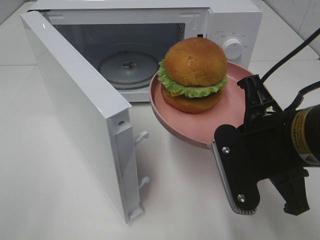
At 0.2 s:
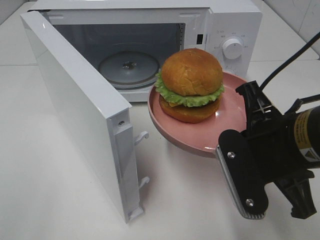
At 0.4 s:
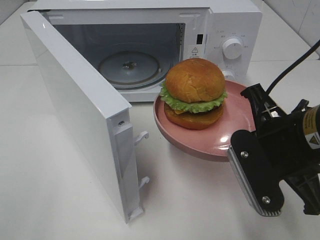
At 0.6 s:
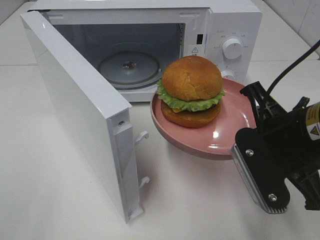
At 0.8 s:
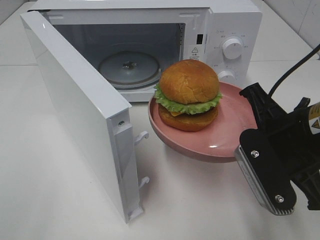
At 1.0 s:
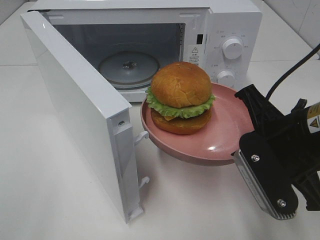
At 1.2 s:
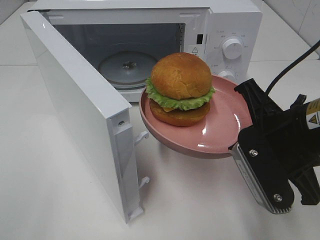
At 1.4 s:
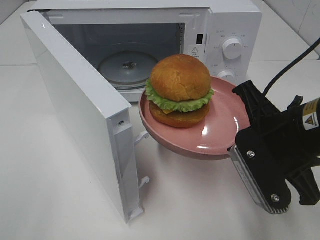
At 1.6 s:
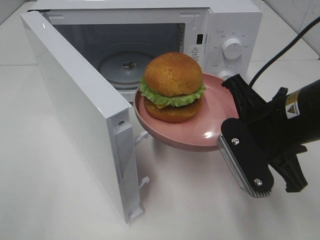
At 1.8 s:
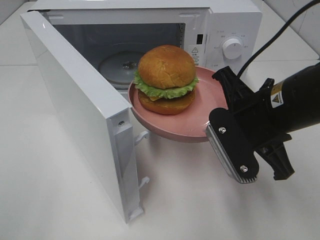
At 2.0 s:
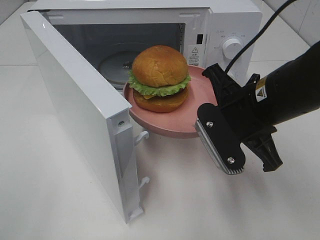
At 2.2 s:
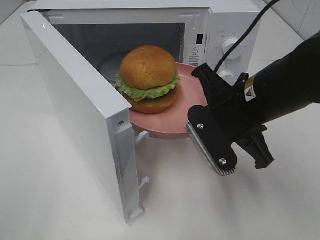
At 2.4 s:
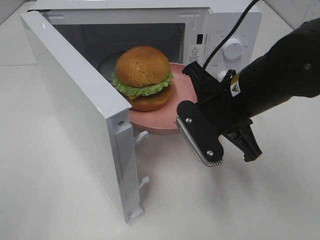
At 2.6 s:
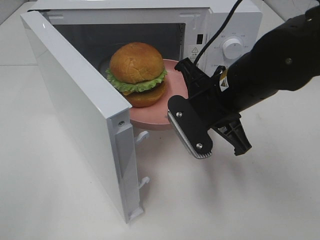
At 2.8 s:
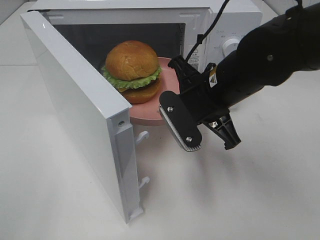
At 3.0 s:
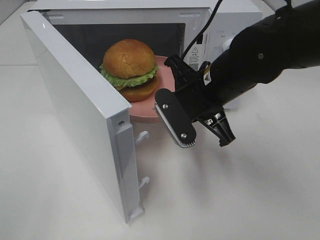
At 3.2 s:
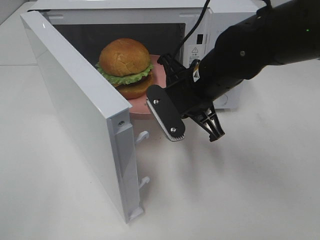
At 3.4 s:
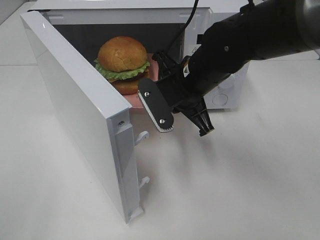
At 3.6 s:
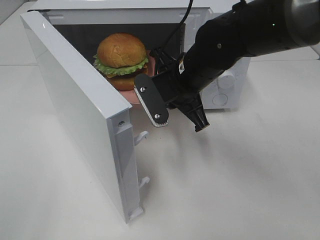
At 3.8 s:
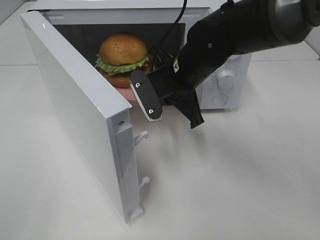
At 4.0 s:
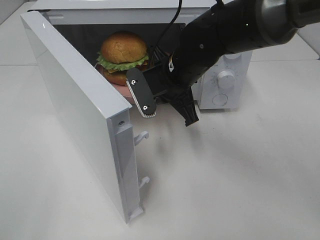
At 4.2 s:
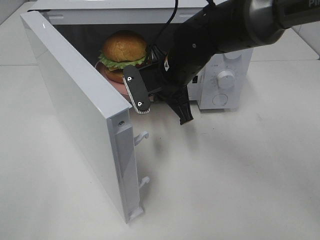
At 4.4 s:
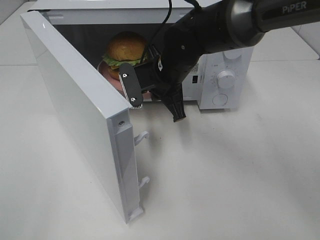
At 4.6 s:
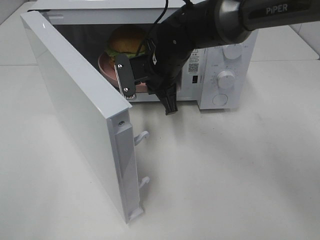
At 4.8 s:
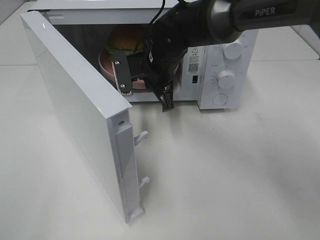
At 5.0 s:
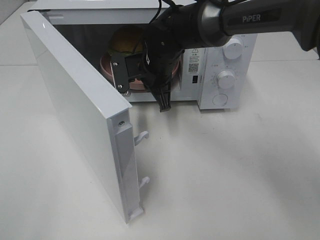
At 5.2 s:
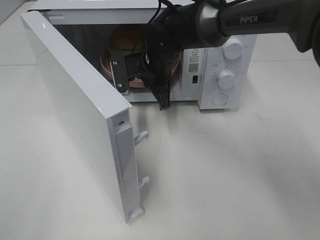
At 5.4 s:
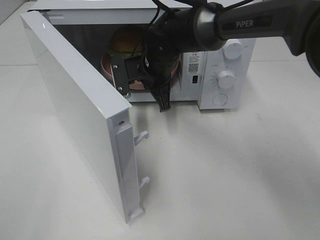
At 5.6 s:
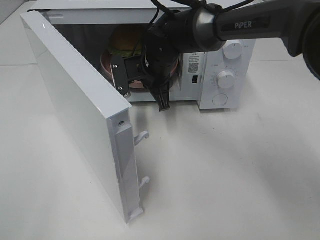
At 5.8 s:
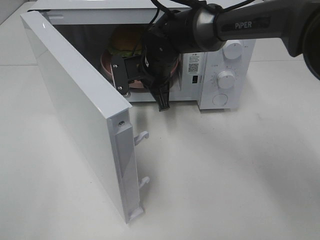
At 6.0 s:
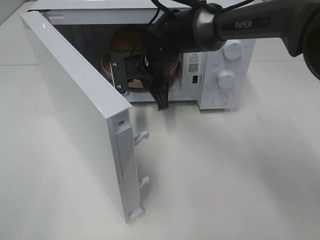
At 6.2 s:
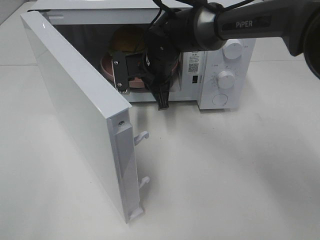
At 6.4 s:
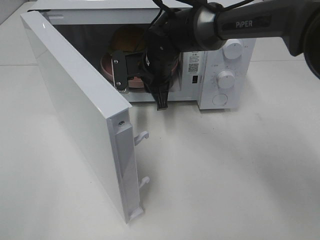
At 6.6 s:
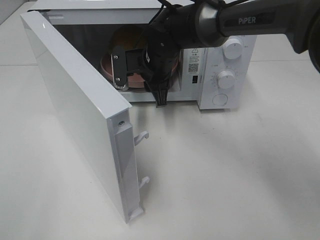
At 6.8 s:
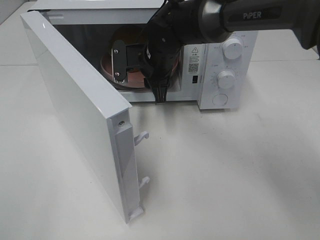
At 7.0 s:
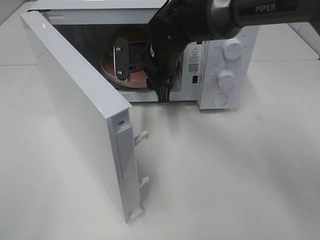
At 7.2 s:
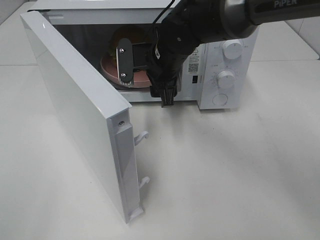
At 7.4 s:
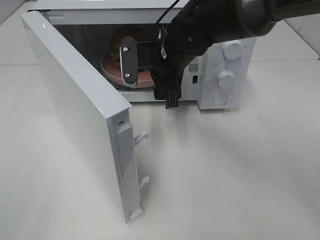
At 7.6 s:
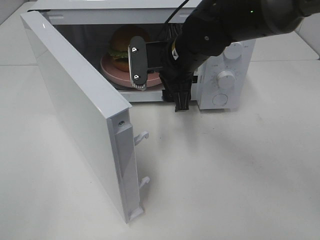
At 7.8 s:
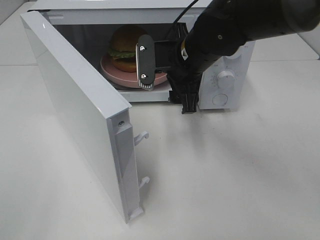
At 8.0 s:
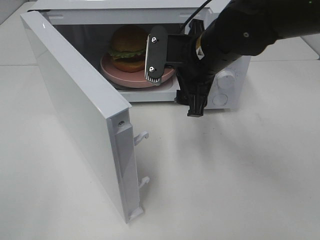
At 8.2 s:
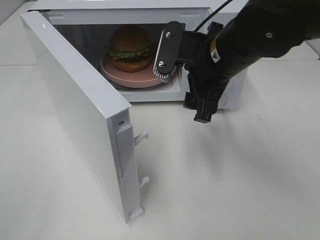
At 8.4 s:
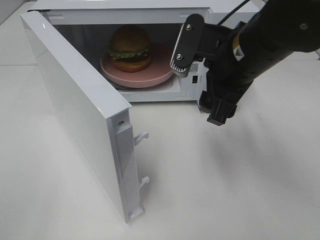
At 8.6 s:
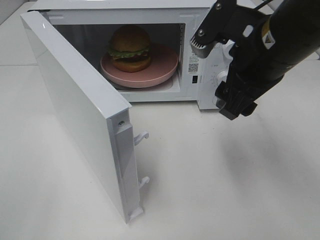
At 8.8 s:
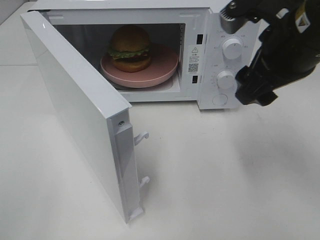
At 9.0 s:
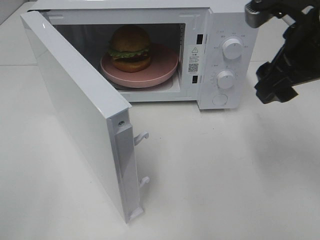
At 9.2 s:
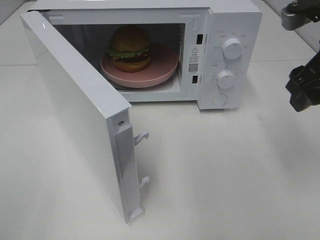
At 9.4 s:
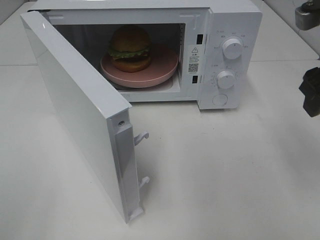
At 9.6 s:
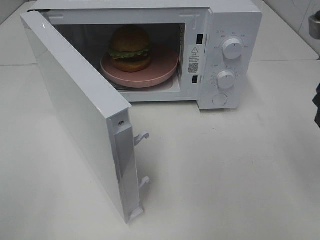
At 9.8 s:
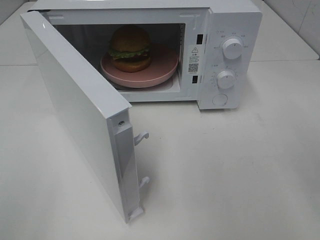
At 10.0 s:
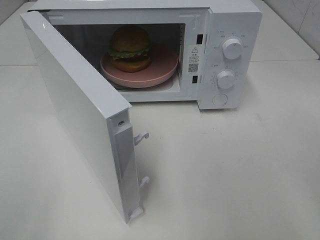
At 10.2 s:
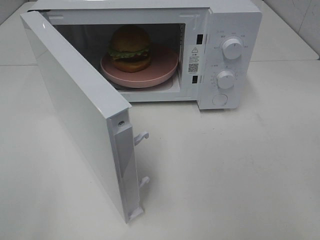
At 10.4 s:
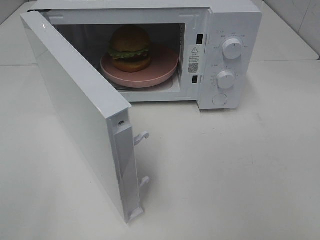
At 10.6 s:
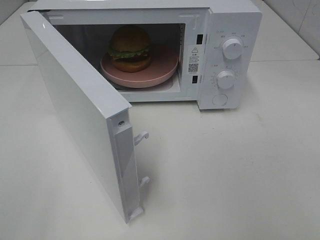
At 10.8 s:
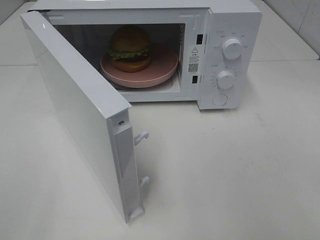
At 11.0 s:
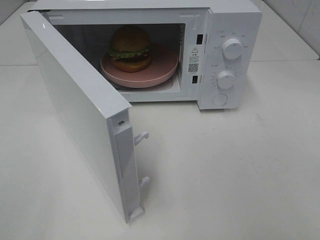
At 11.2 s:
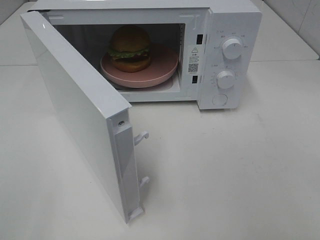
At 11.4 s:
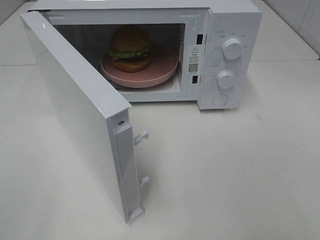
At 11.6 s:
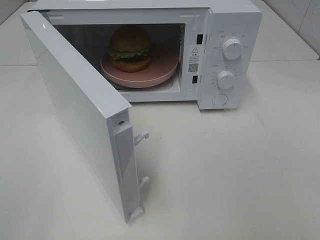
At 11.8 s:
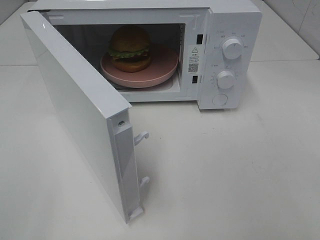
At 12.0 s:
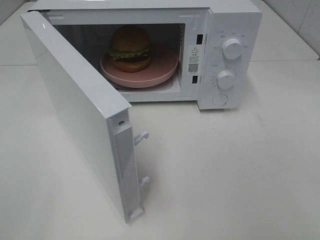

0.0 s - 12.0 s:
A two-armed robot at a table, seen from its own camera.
Task of the whole recording: Heat the burger.
Step, 0.0 s - 6.0 s: Right hand: place the plate in the microwave.
0.0 s - 1.6 s: The grippers make only small movements.
1.6 s - 3.0 s: The right gripper is displaced forward and to the left by roughly 10 cm.
3.0 s - 4.4 s: The right gripper shifts approximately 10 cm forward and to the left.
4.4 s - 6.0 s: The grippers move only a little.
6.0 s - 7.6 s: The right gripper travels backward by approximately 5 cm, and opens up.
7.6 s - 9.0 s: The right gripper is displaced to the right, backward and upward by about 20 cm.
9.0 s - 10.4 s: The right gripper shifts some 20 cm backward and to the right.

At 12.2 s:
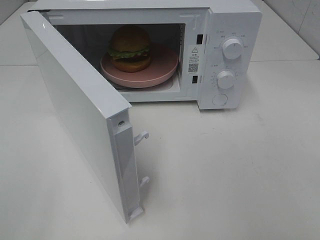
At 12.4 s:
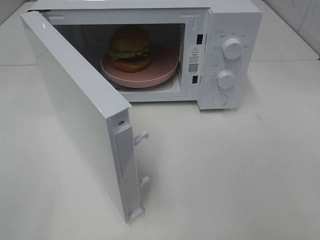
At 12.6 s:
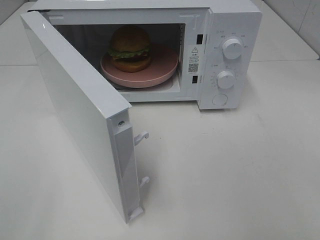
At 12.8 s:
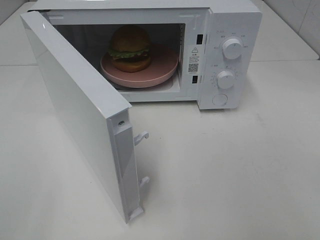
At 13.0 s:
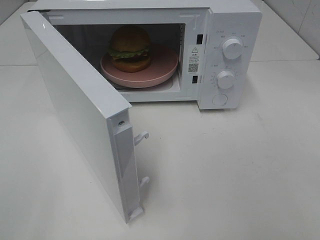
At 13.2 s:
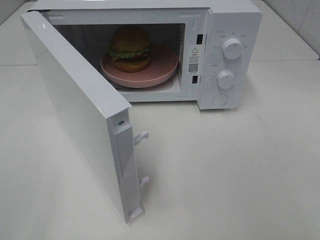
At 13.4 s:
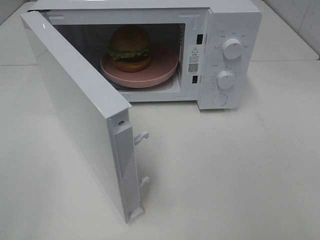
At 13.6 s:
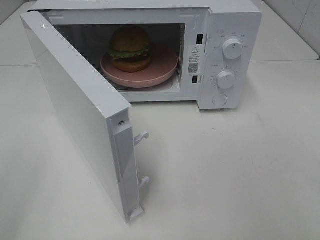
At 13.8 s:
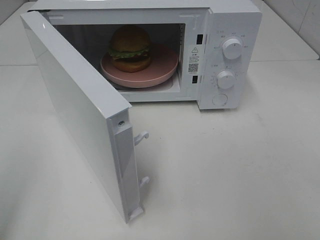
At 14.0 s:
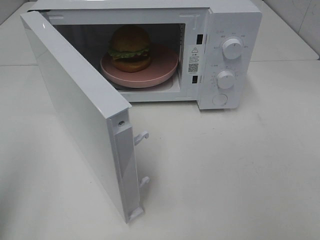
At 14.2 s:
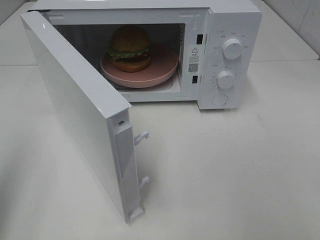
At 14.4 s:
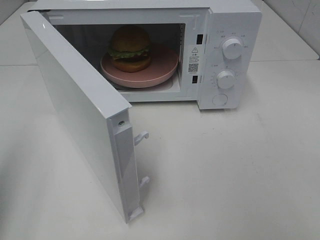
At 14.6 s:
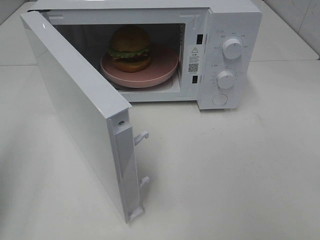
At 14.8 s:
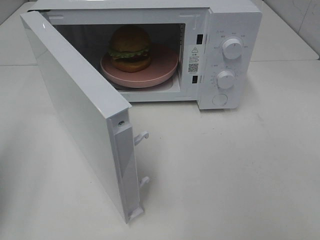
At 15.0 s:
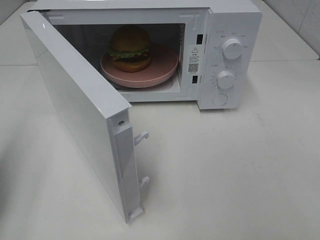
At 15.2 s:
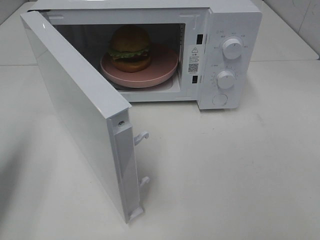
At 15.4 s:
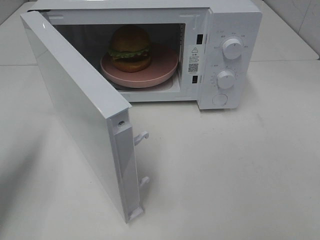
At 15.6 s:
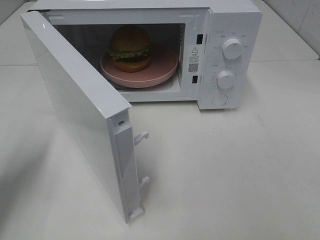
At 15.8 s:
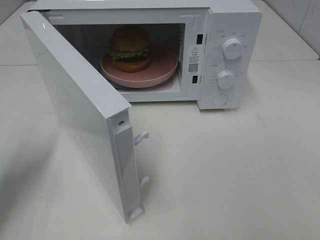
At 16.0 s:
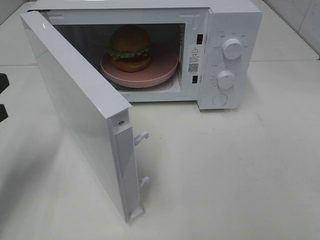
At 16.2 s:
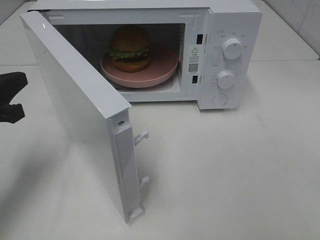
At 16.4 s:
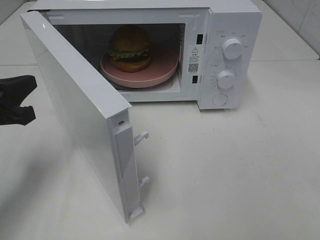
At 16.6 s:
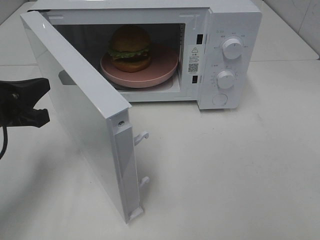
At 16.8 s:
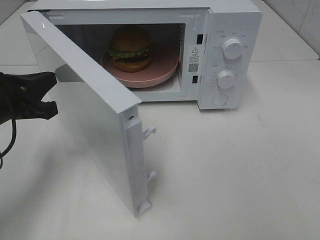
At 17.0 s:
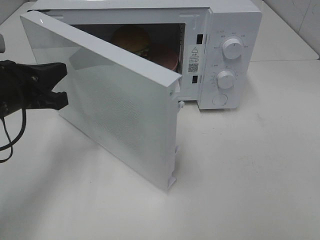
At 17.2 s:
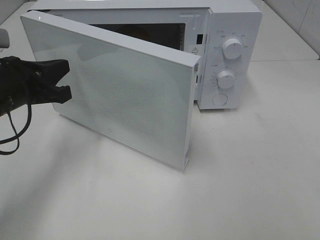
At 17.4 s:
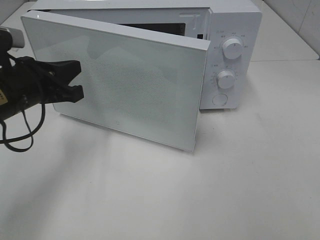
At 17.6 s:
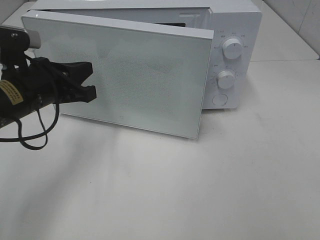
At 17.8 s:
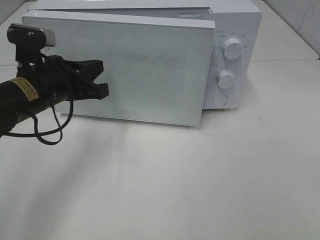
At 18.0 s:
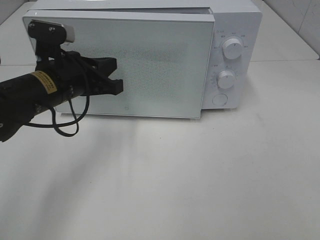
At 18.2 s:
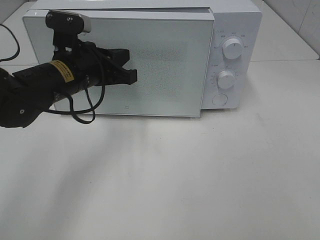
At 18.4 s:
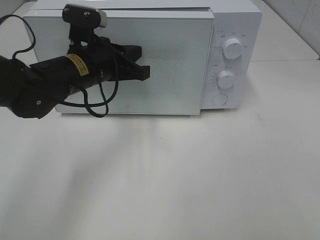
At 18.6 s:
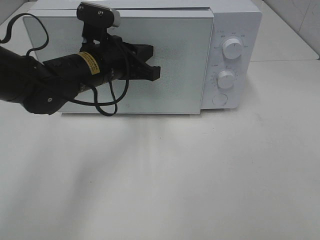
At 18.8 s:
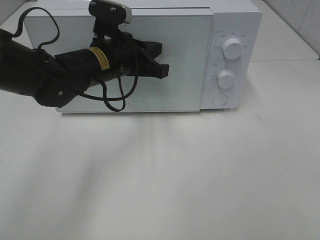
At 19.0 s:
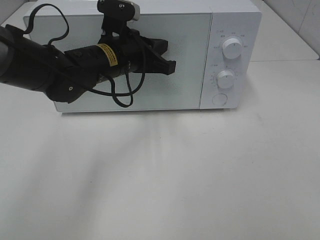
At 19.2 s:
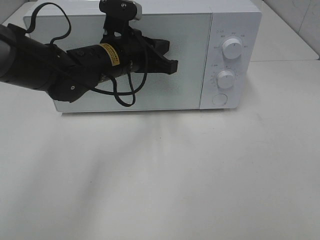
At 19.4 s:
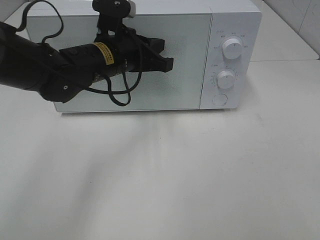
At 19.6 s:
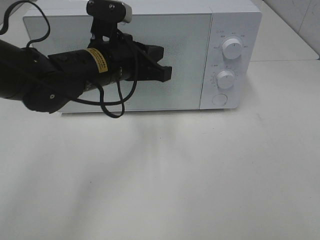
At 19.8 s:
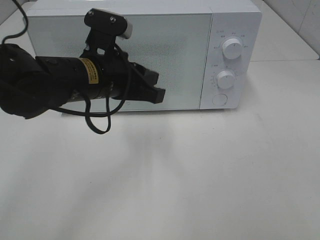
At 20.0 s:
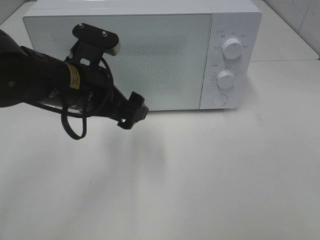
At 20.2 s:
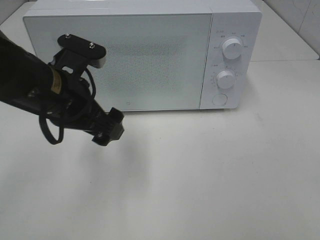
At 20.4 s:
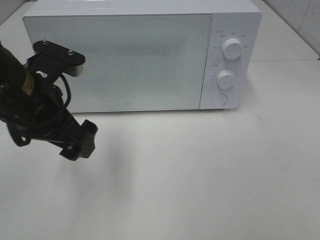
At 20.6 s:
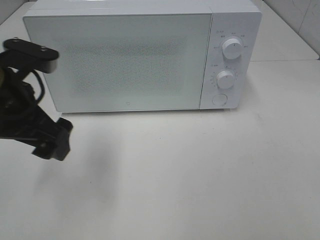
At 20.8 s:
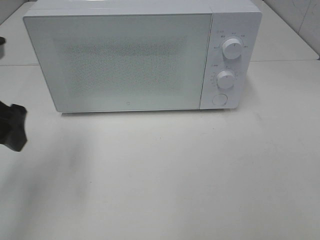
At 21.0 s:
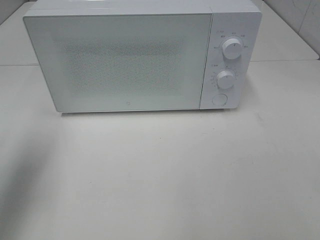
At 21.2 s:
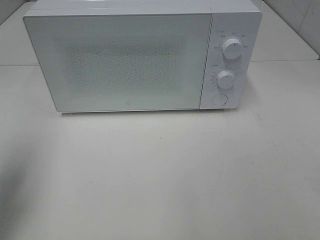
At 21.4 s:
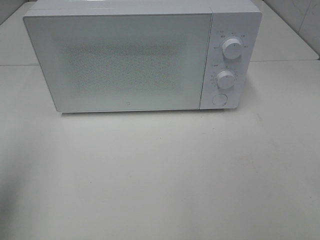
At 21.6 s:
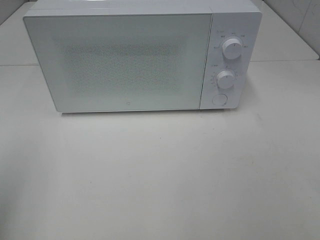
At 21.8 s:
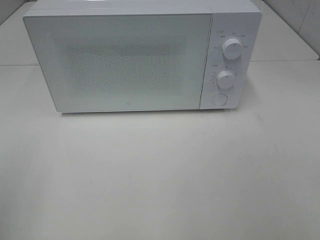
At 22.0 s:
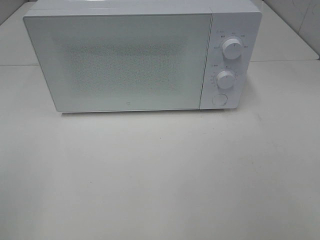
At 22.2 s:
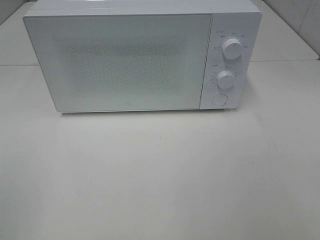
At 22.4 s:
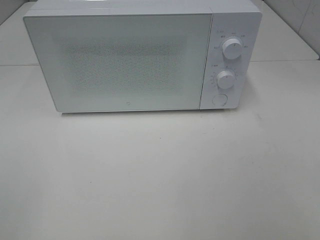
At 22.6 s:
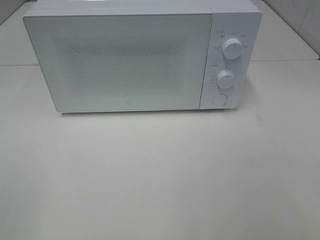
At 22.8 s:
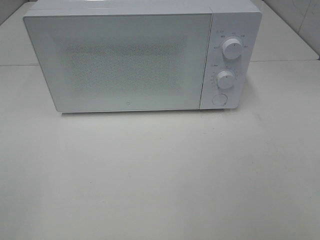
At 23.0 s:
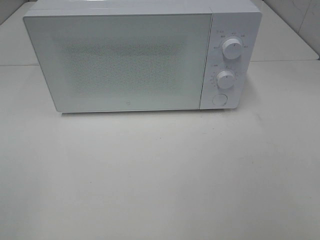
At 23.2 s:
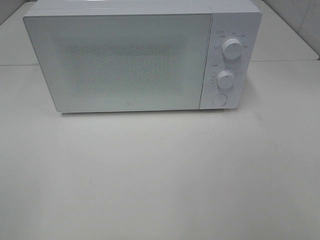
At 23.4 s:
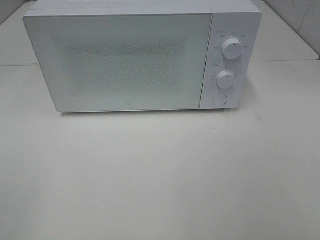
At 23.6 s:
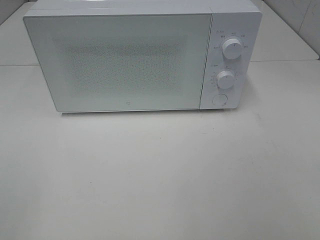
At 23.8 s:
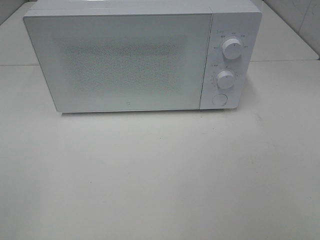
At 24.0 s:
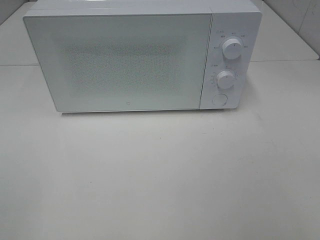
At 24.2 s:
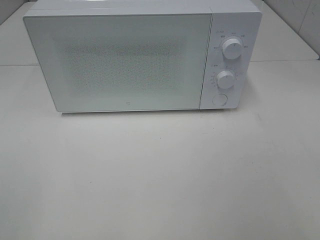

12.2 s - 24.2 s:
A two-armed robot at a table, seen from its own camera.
Task of the whole recording: Heat the burger.
Step, 12.2 s - 19.4 s: Left hand: close the microwave door.
13.8 s - 15.2 s: The left gripper is displaced forward and downward by approximately 15 cm.
15.2 s - 16.6 s: The left gripper heads to the right, downward and forward, covering some 10 cm.
16.6 s - 18.2 s: The left gripper shifts about 15 cm to the right and forward.
18.2 s - 19.8 s: The left gripper moves roughly 5 cm.
19.8 s - 21.2 s: The left gripper goes some 25 cm to the left, upward and backward, and opens.
21.2 s - 22.6 s: The left gripper heads backward, covering roughly 20 cm.
